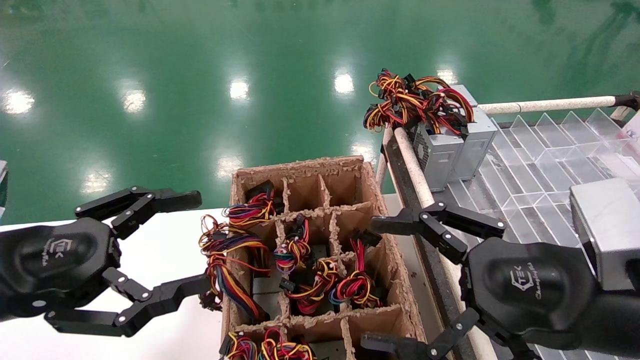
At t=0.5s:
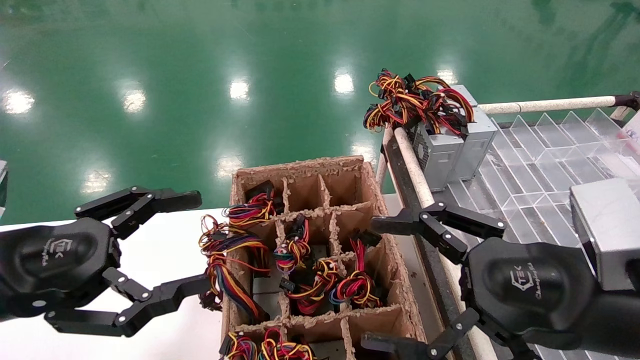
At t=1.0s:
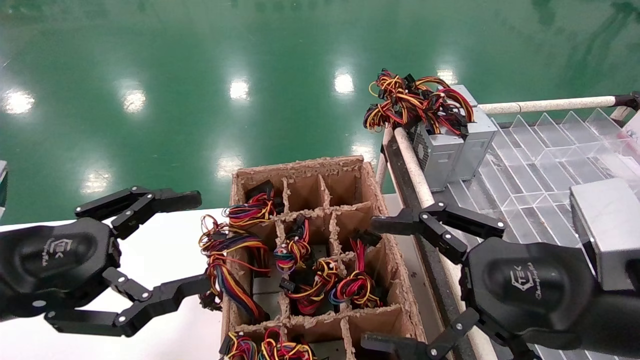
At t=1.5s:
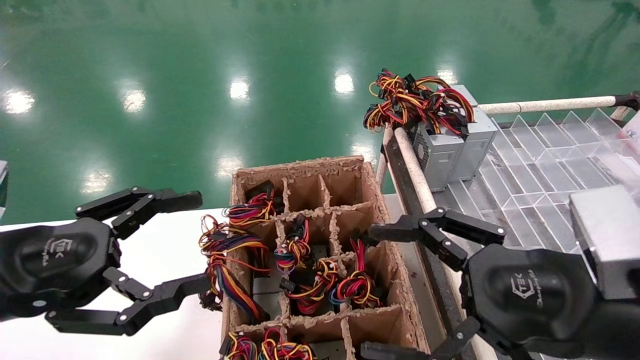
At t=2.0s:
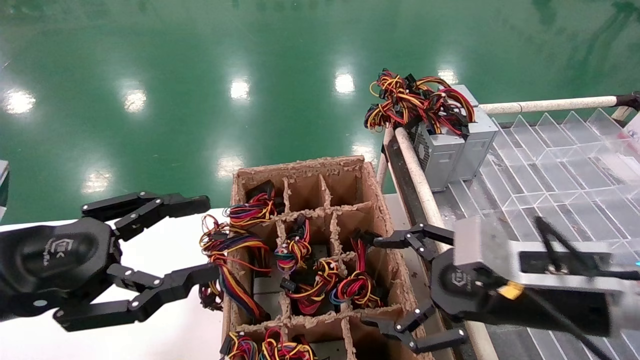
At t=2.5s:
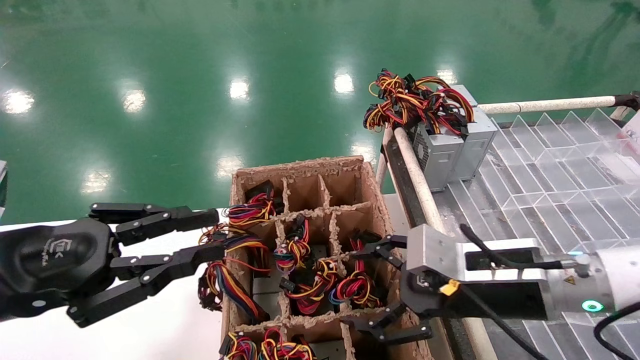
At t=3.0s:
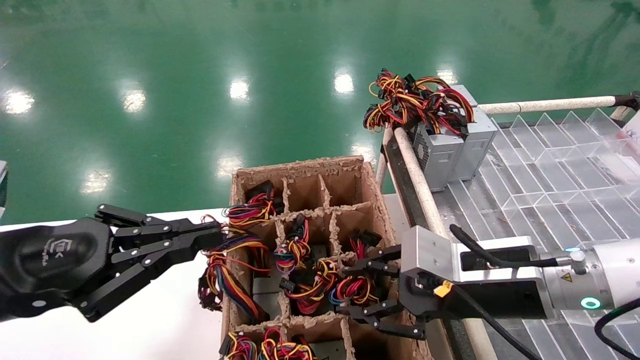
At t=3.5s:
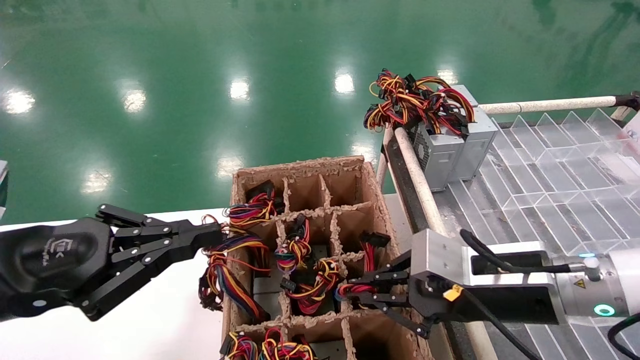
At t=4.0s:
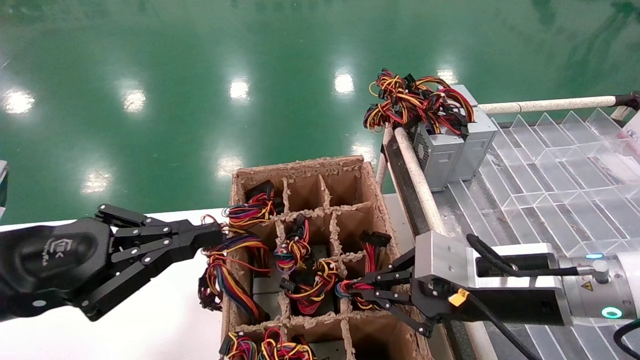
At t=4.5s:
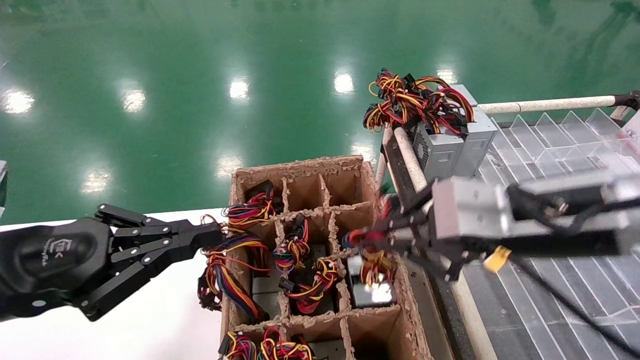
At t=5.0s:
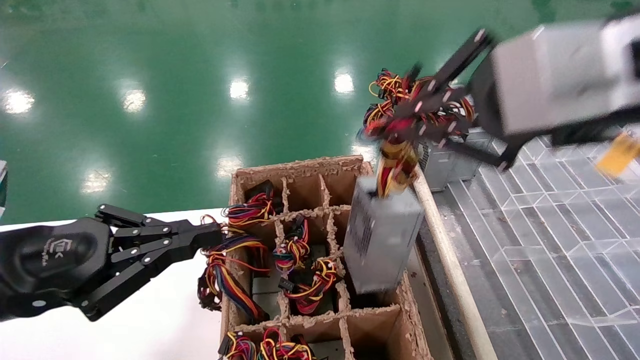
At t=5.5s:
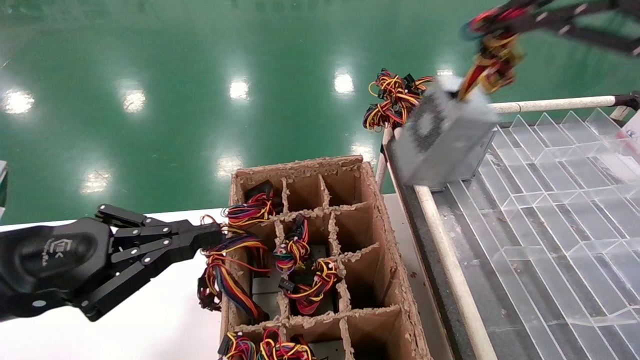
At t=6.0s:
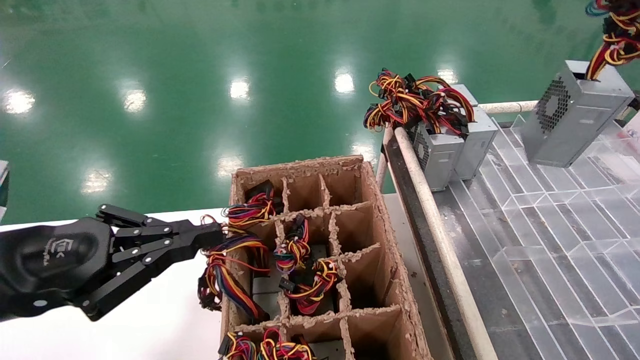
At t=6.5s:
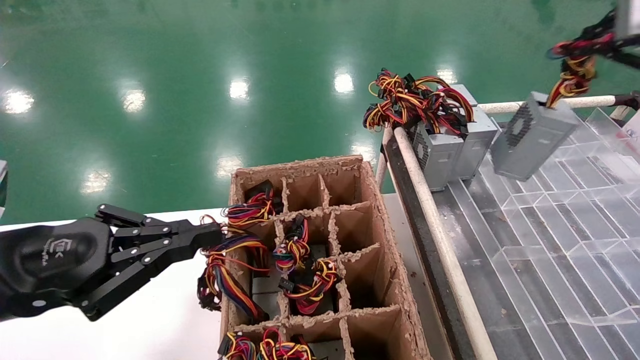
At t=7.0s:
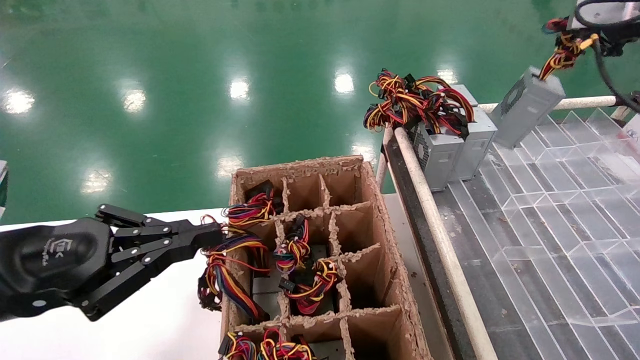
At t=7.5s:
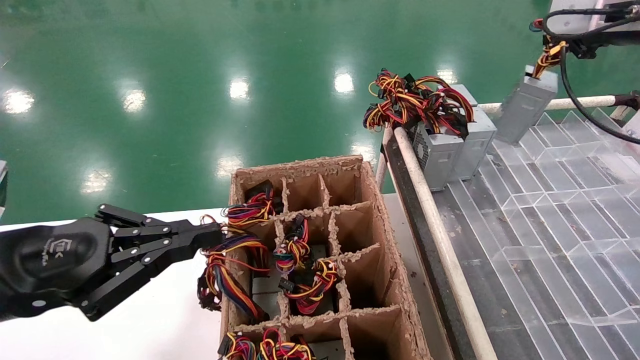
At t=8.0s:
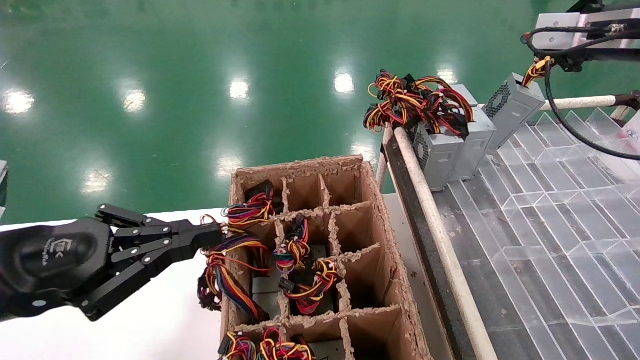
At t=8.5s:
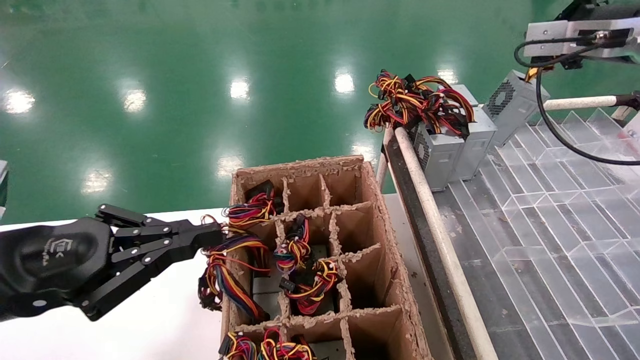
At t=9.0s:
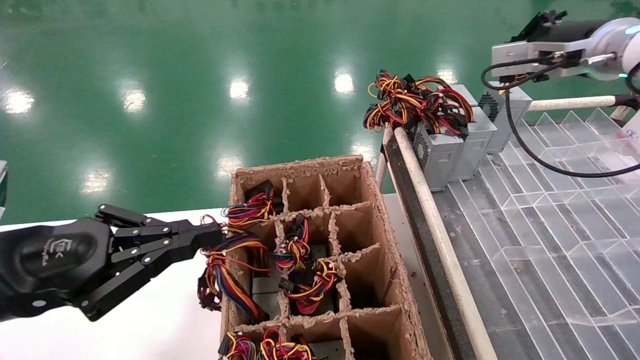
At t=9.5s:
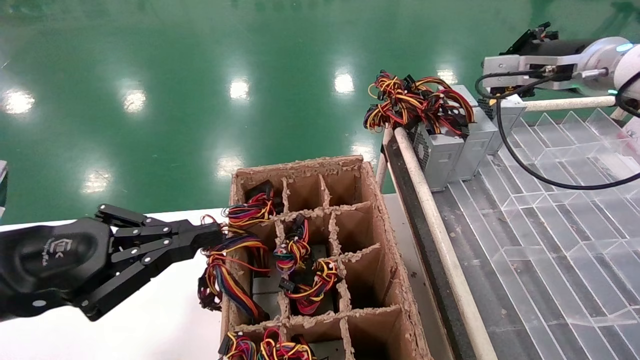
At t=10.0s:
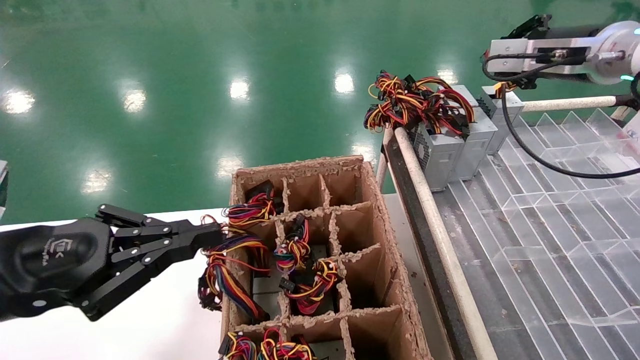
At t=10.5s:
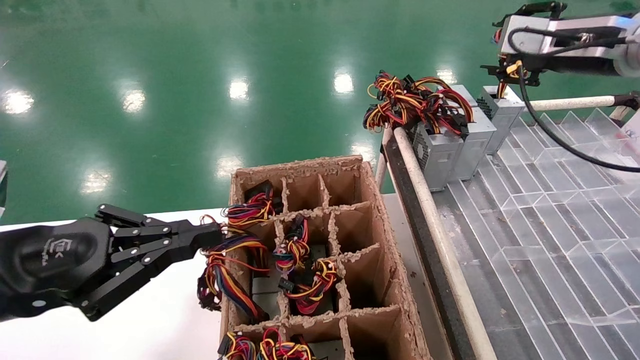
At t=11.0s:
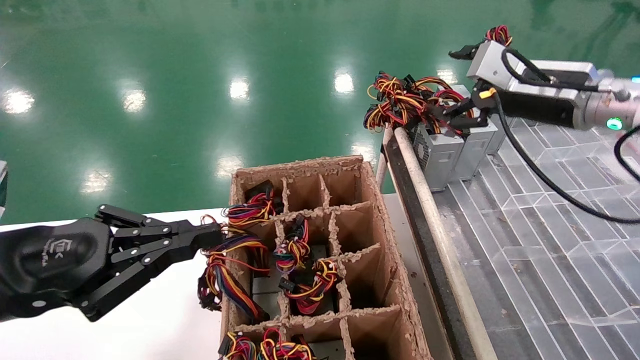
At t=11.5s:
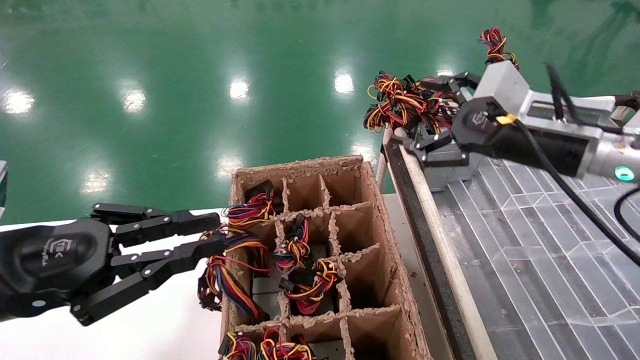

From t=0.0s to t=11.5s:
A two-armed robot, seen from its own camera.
Step, from t=2.0s to t=3.5s: Grab the main unit power supply from the containment box.
Step, from t=4.0s to t=10.5s: Place the main unit power supply in the designated area.
From t=0.0s to t=2.0s: The right gripper shifts approximately 5 cm forward.
From t=2.0s to t=4.0s: The right gripper closes; the left gripper closes its fingers.
From t=4.0s to t=6.0s: The right gripper heads upward and to the right, covering some 35 cm.
From t=6.0s to t=7.5s: The right gripper travels forward by about 20 cm.
From t=7.5s to t=9.5s: The right gripper shifts approximately 10 cm downward and forward.
From t=9.5s to t=11.5s: The right gripper is displaced downward, backward and to the left by some 15 cm, and opens its fingers.

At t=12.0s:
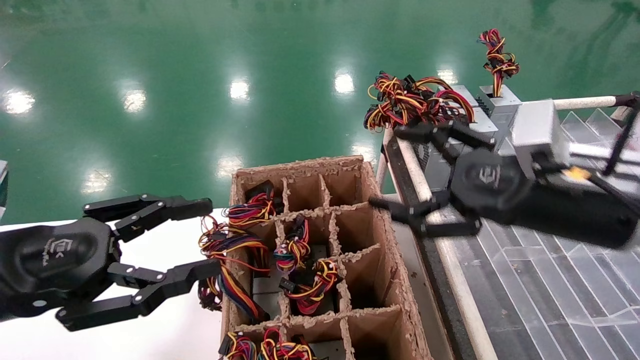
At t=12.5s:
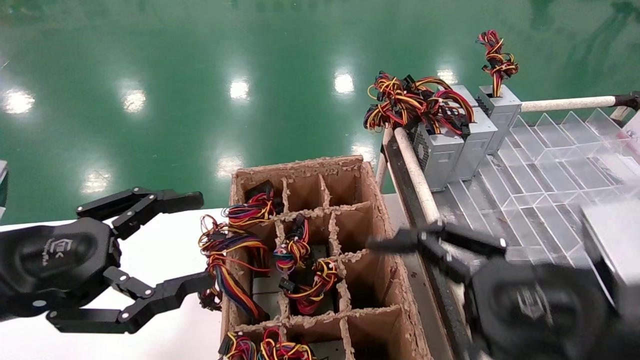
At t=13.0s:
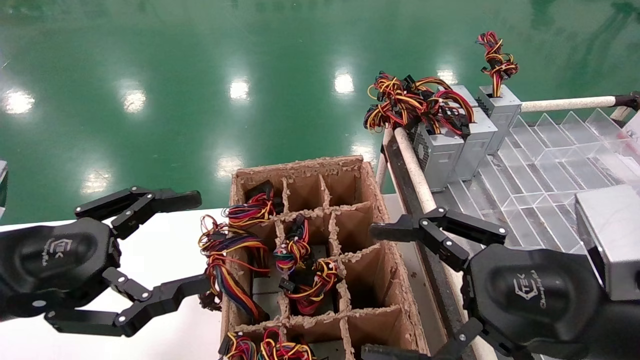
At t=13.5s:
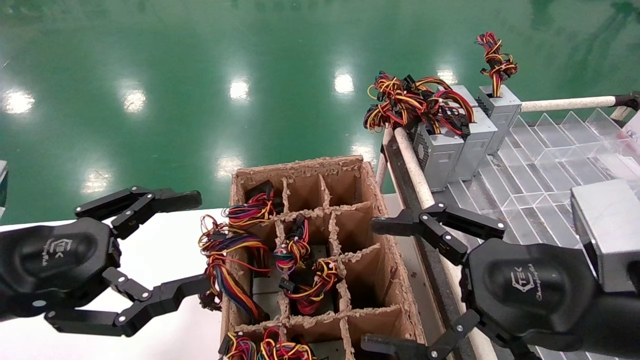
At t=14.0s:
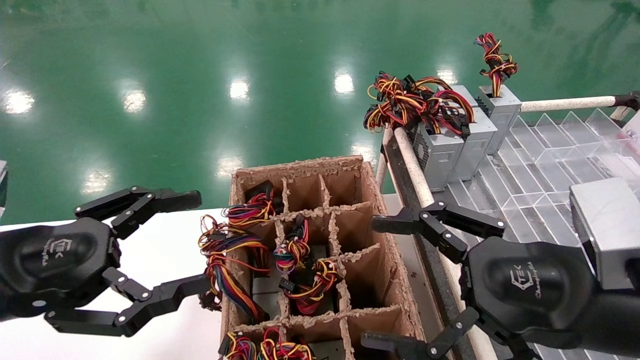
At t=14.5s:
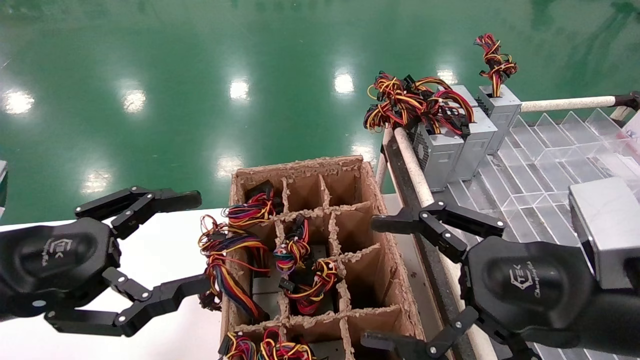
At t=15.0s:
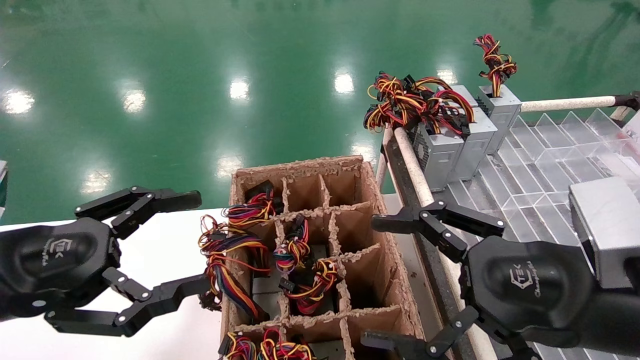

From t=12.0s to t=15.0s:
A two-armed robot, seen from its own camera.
From t=12.0s to t=13.5s: The right gripper is displaced backward by about 10 cm, while the left gripper opens up.
From t=13.5s to t=15.0s: The two grippers keep their place.
